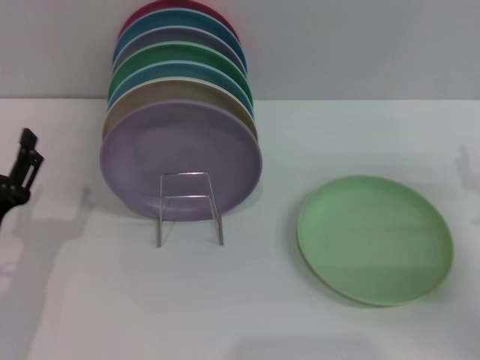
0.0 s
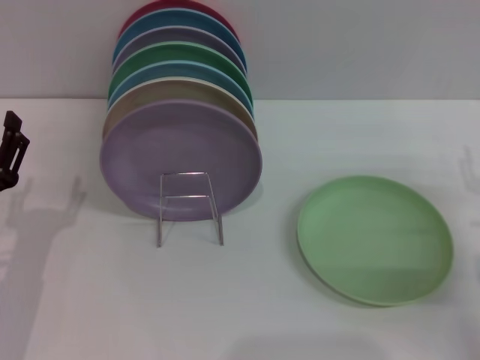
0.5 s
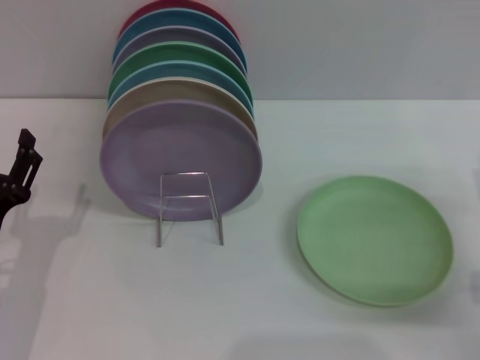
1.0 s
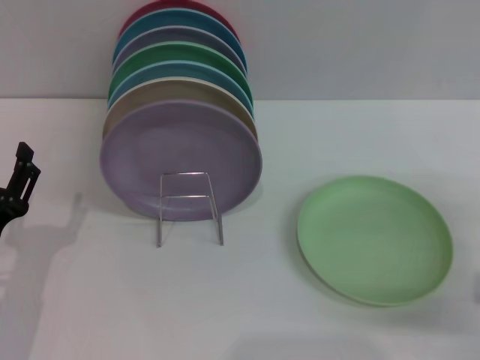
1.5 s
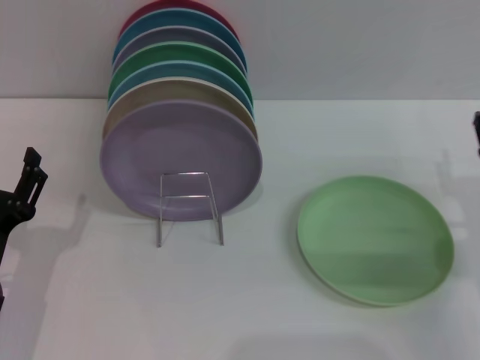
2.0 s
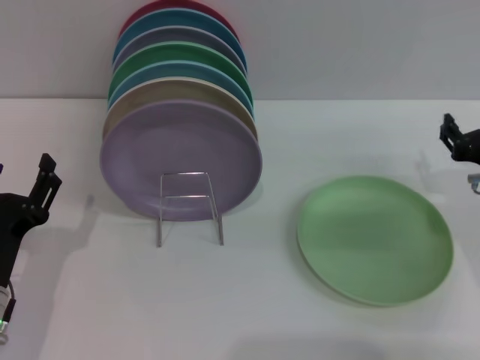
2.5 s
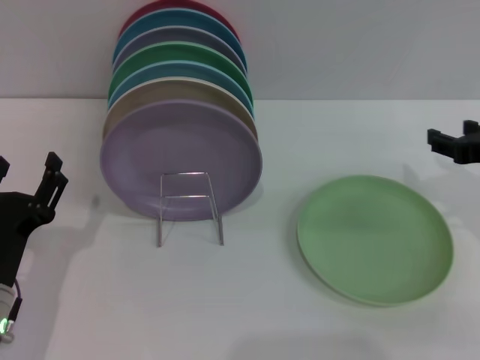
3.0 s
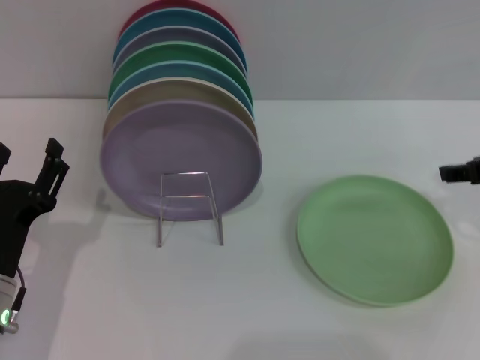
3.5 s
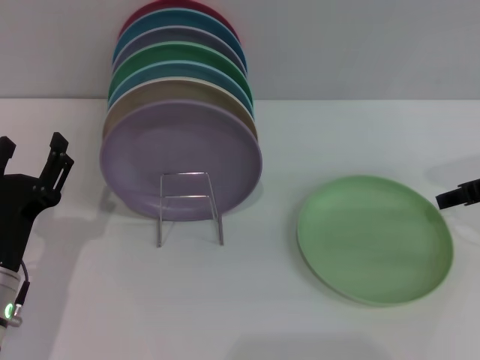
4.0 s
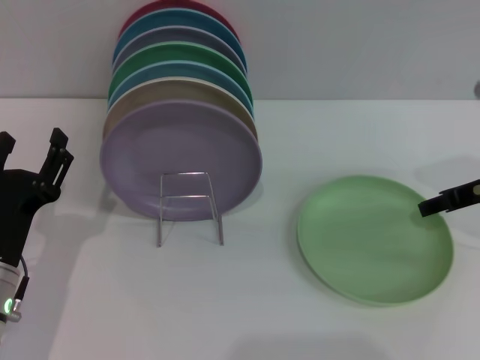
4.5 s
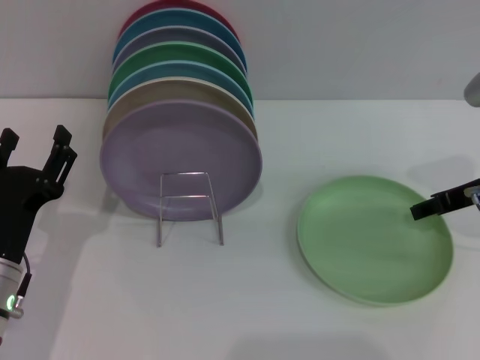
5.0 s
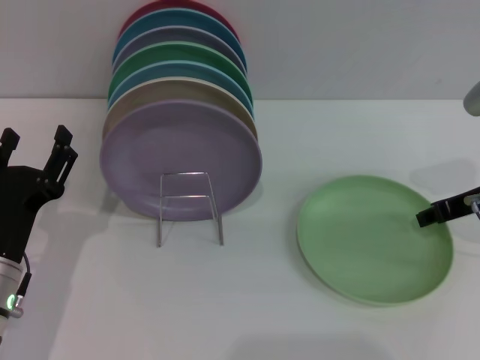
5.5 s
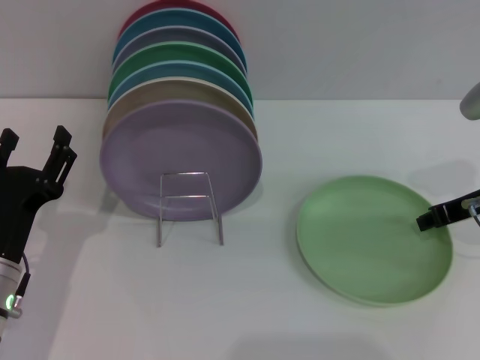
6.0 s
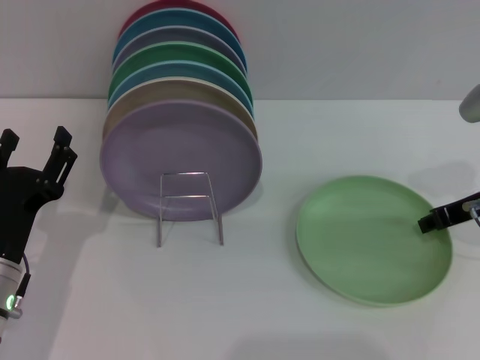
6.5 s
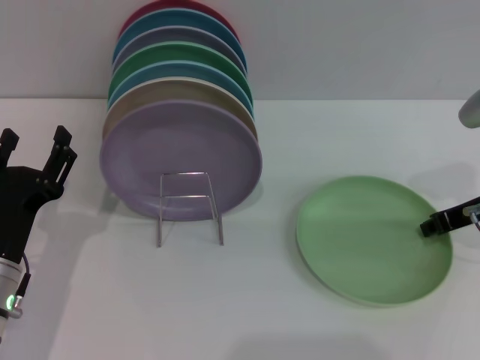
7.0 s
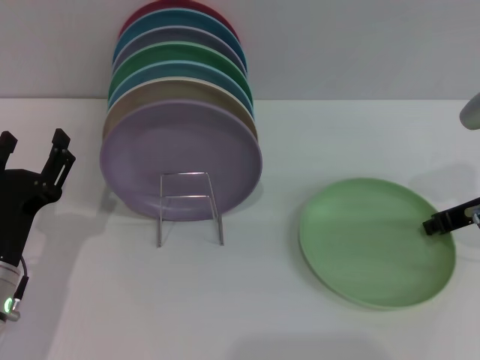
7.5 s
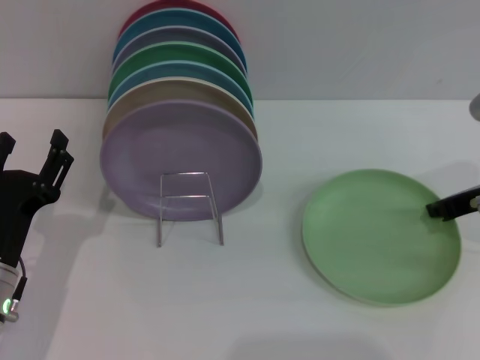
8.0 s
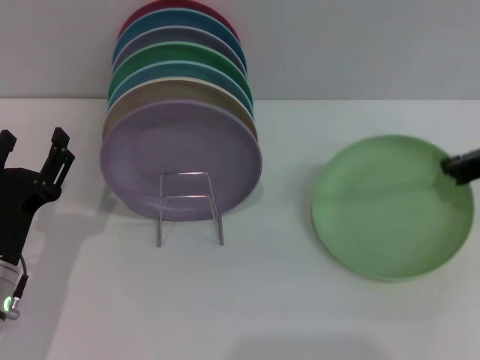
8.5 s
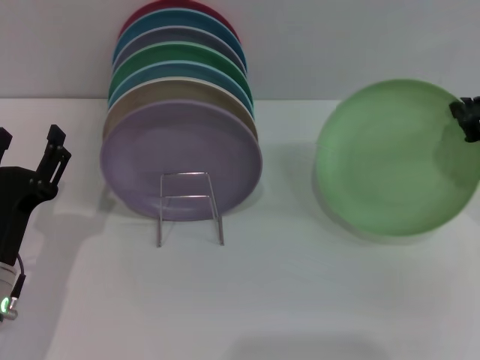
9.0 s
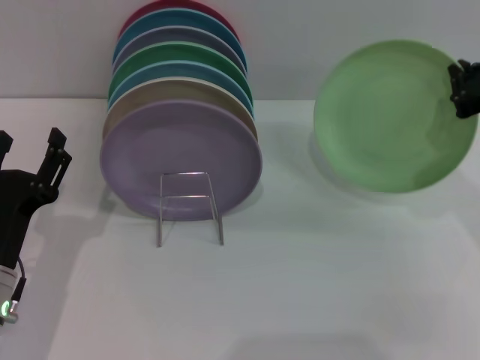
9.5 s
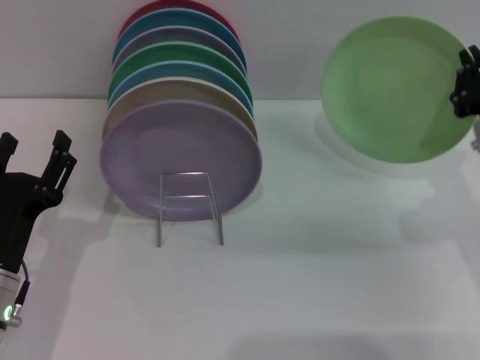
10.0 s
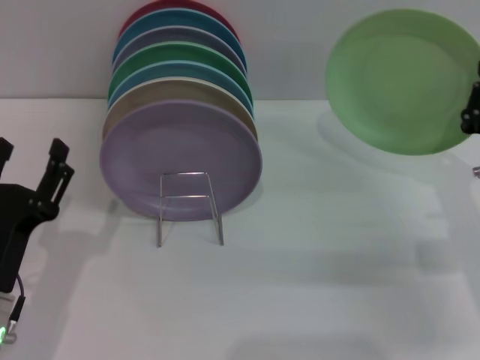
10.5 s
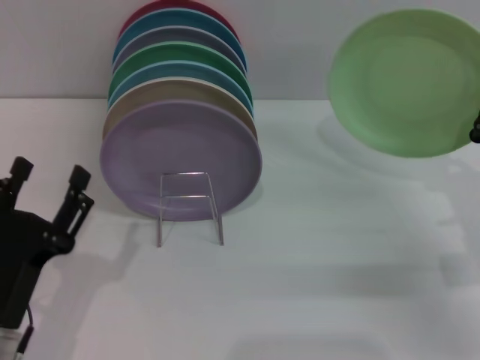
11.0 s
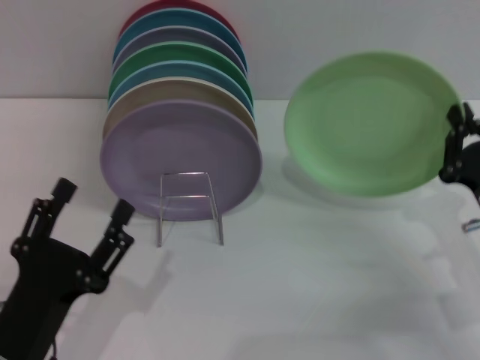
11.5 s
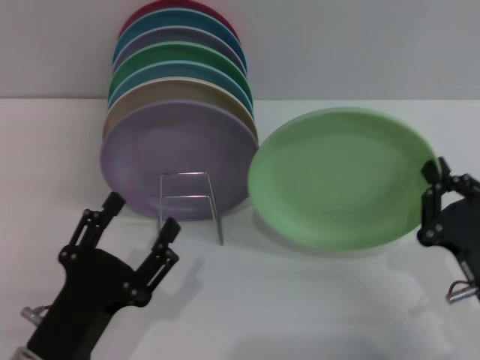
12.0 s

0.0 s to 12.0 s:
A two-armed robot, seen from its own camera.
Task of the whole recording: Grip the plate with one hand, pass it to the other, then set it on the shelf.
Step, 0.0 to 10.5 s: Pick up the plate with the right gripper.
2.0 to 4.0 s: The right gripper shifts about 10 cm upward and forward.
4.0 to 6.0 s: The right gripper closes its fingers.
6.0 to 8.0 s: The right gripper closes its fingers.
10.0 to 12.0 s: The left gripper moves backward, about 10 cm; the right gripper is displaced backward and downward by some 15 cm.

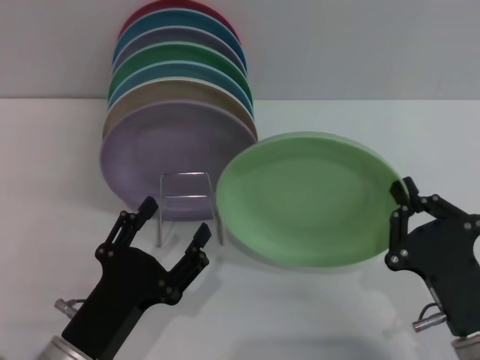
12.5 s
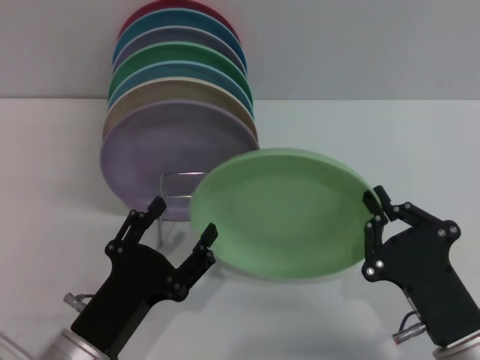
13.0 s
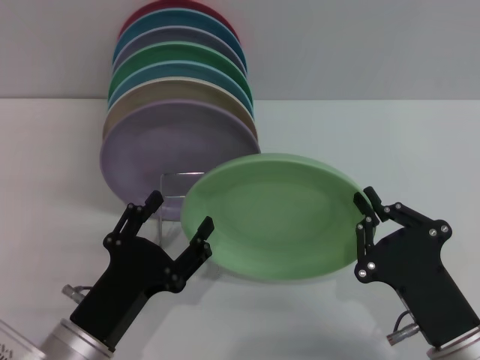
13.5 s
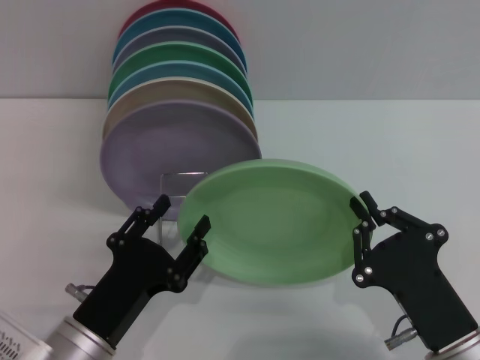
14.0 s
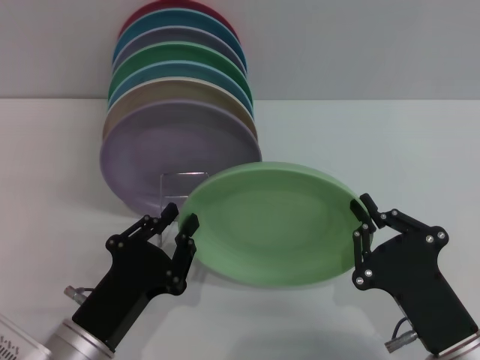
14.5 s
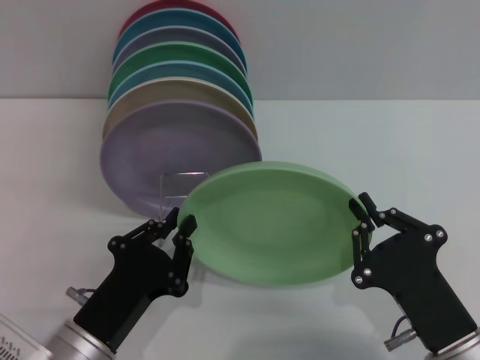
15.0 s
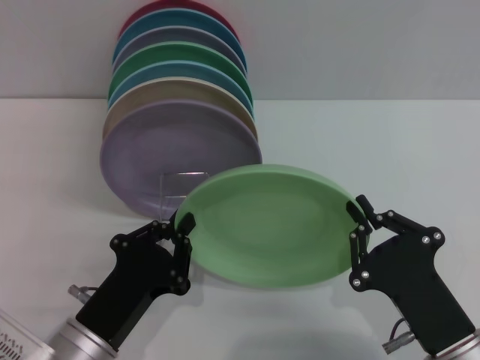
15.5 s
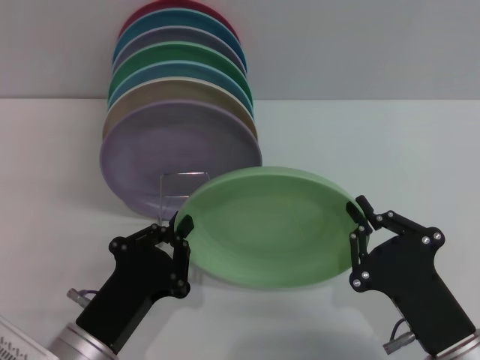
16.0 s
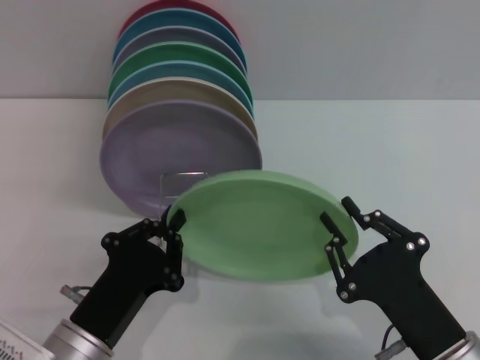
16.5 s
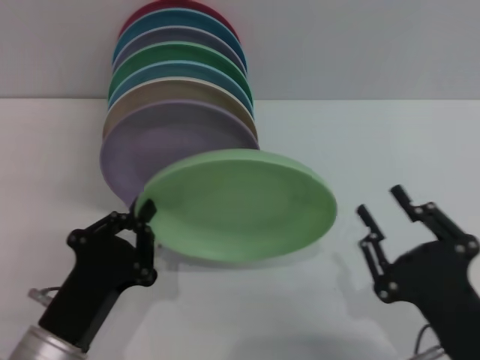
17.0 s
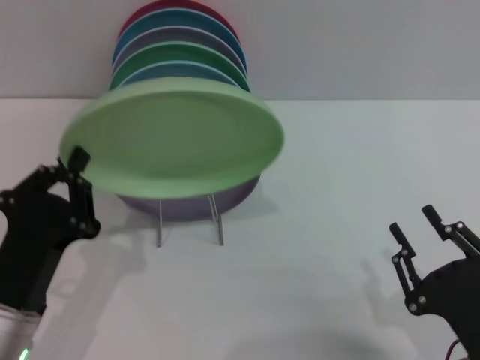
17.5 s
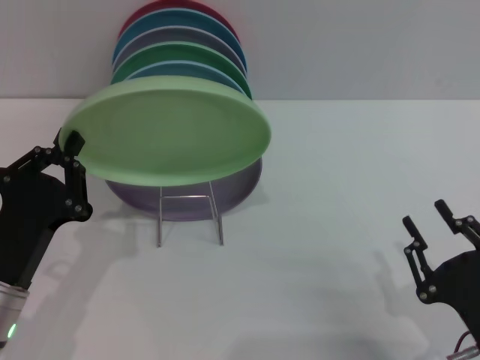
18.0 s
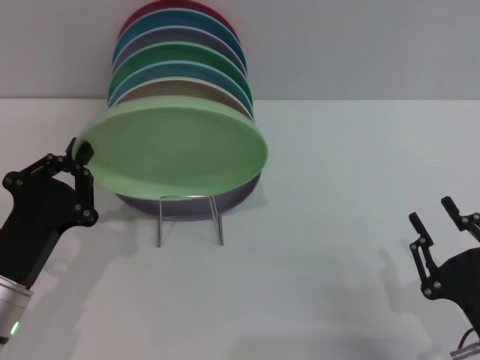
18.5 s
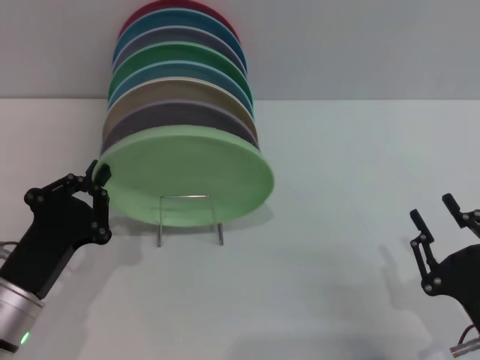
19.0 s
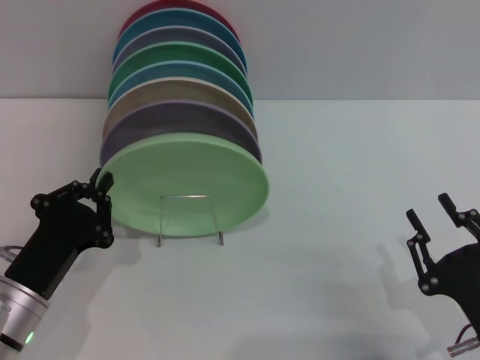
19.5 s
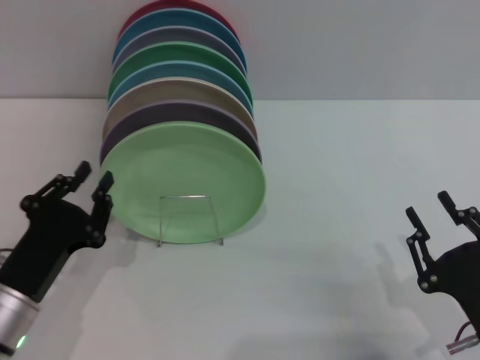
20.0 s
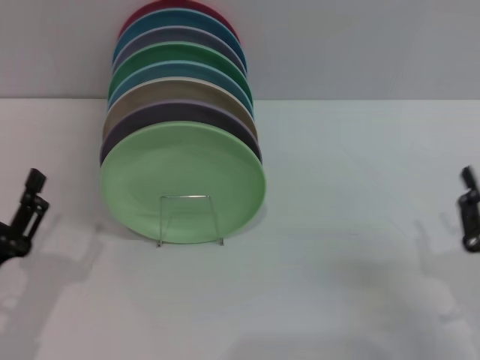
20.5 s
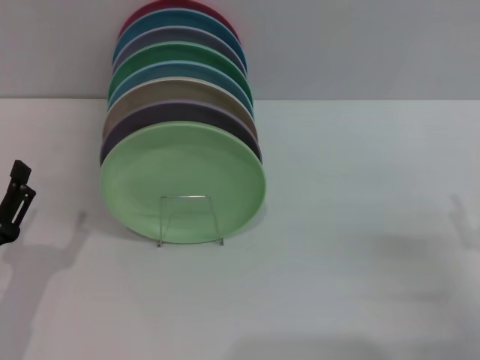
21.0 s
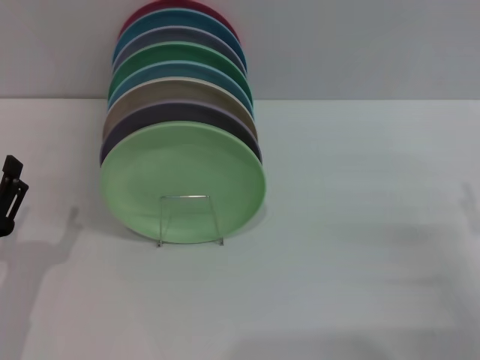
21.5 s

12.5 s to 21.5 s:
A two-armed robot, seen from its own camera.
Task of the whole recording: Grip the plate with one hand, pass it to the other, then set it on the shelf.
Step, 12.5 to 17.0 s: Pass the plate from the right gripper to the left gripper.
Step, 17.5 to 20.0 s: Place the plate on the shelf with the left gripper.
12.5 to 14.5 s: The left gripper closes its fingers.
14.5 to 17.0 s: The right gripper opens.
17.0 to 19.5 s: The left gripper moves forward, approximately 5 cm.
19.5 to 21.5 s: The right gripper goes some 10 cm to the right and forward, and opens its fingers, while the left gripper ends up about 5 cm from where it was, and opens its fingers.

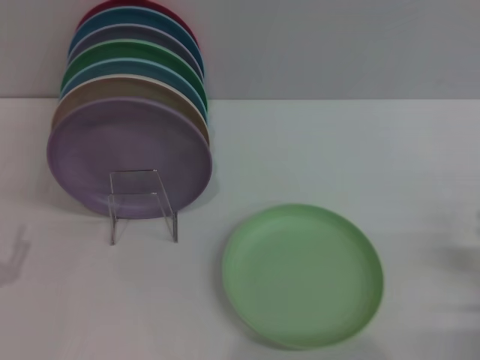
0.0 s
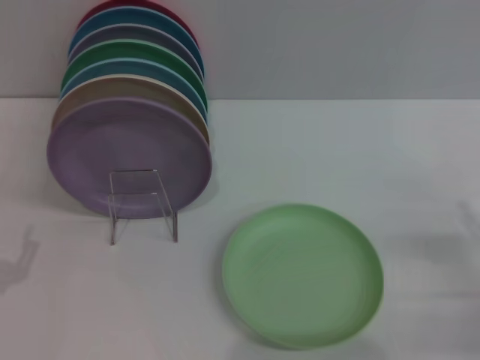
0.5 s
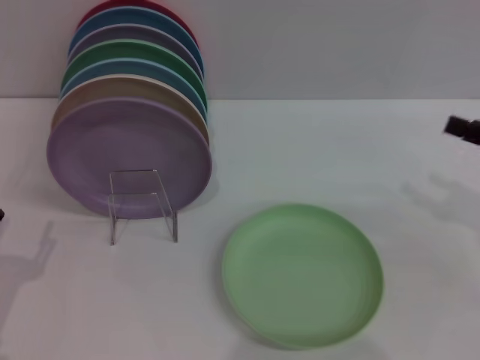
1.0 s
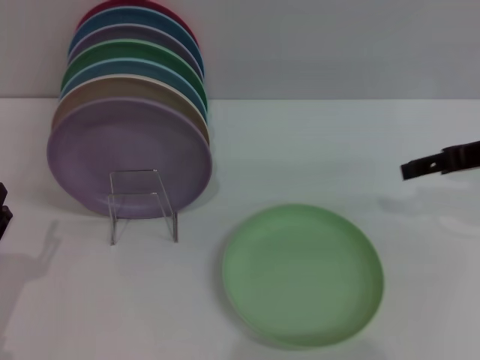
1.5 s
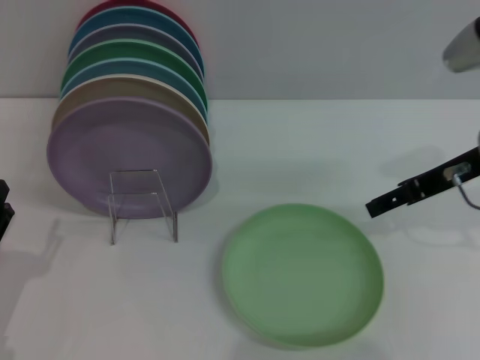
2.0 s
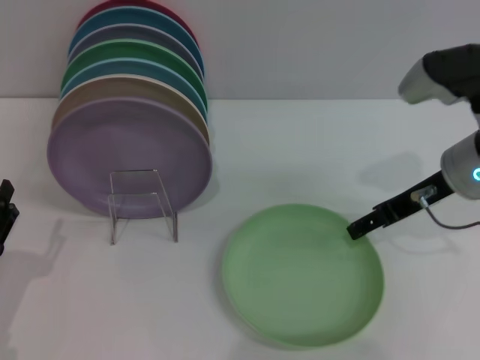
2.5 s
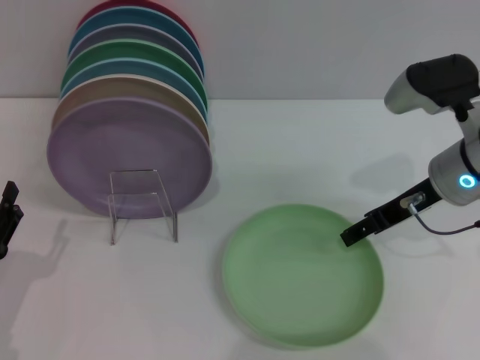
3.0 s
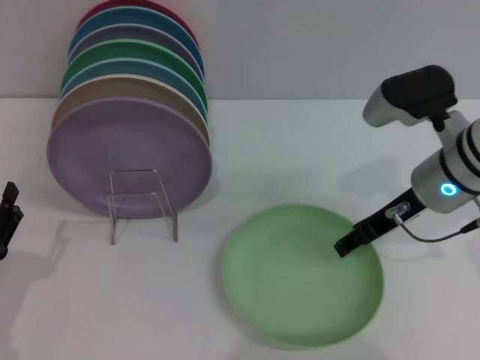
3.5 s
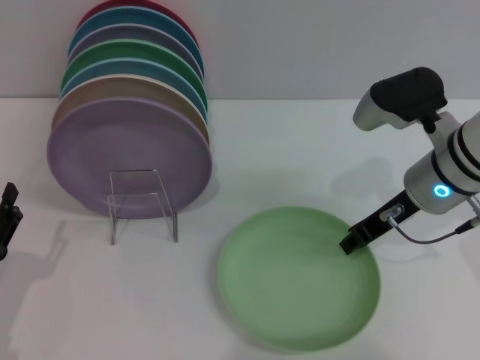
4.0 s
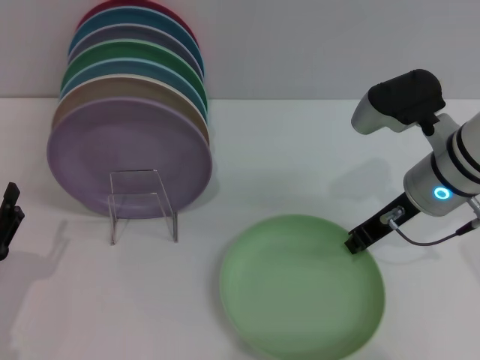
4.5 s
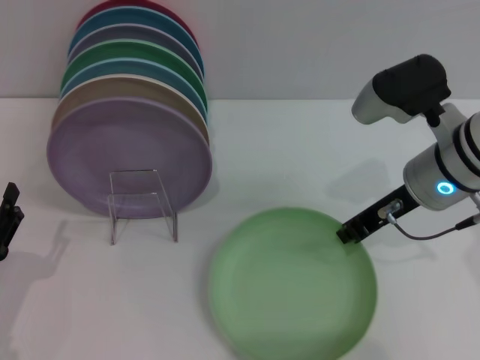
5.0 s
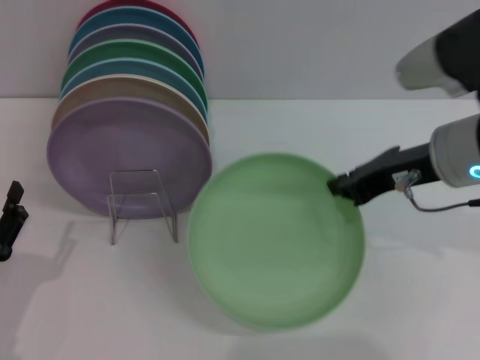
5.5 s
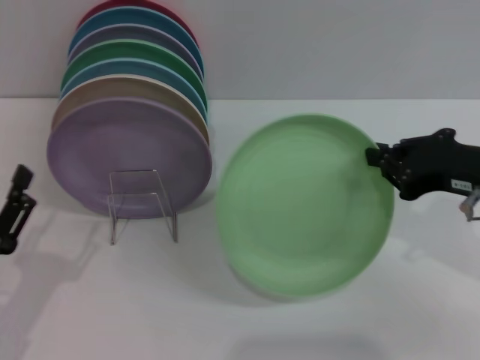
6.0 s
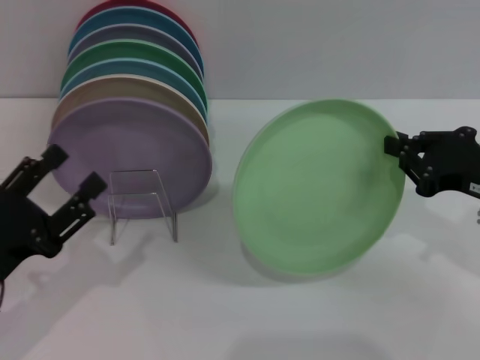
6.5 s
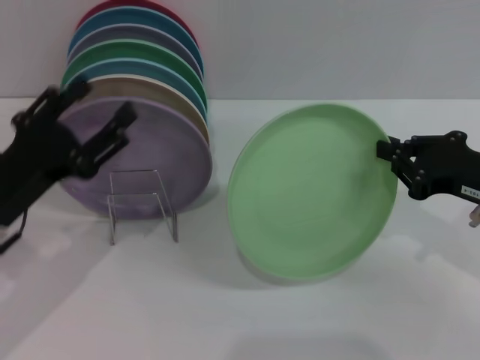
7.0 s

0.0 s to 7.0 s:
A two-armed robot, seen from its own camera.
Task of the whole recording: Grip the plate with one hand, pass it to the other, then set it on the shelf.
Step, 0.0 to 6.0 s: Pick up the plate with the right gripper.
0.0 to 2.0 s: The right gripper shifts approximately 25 cm upward, forward and to the left.
2.0 to 3.5 s: The right gripper travels downward by roughly 5 cm.
3.5 to 5.0 s: The right gripper closes its fingers.
5.0 to 7.0 s: The left gripper shifts approximately 10 cm upward and forward. The right gripper shifts roughly 10 cm to the right and backward.
